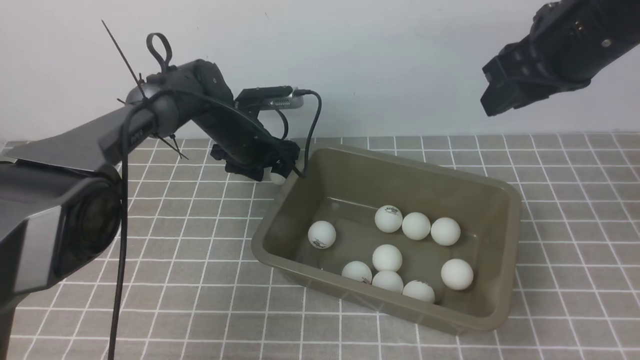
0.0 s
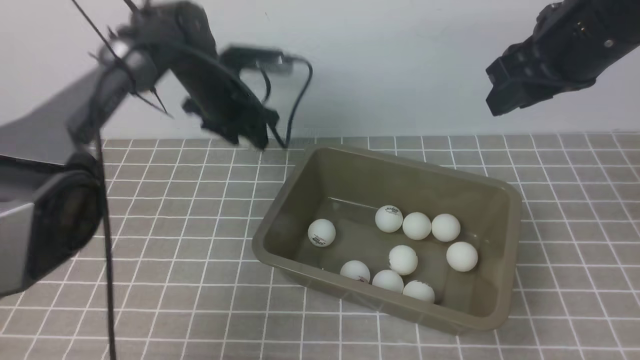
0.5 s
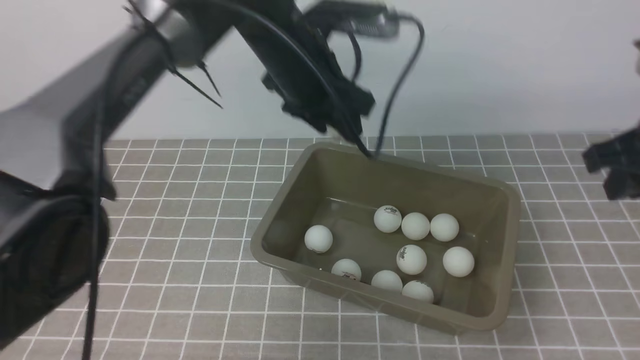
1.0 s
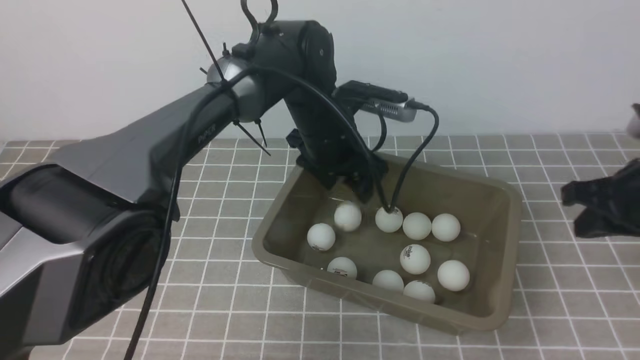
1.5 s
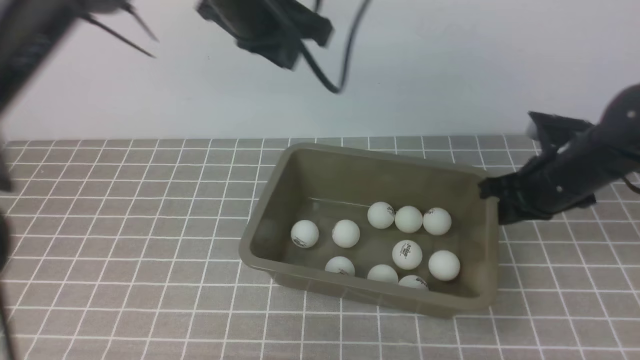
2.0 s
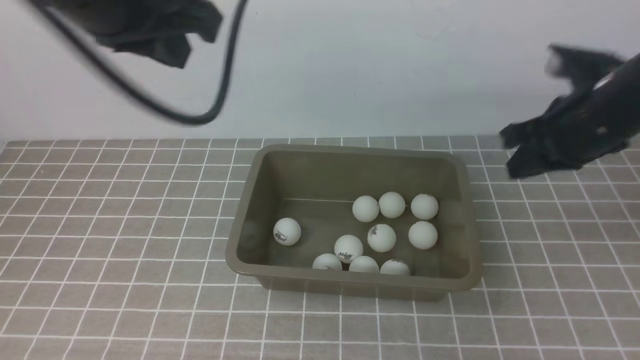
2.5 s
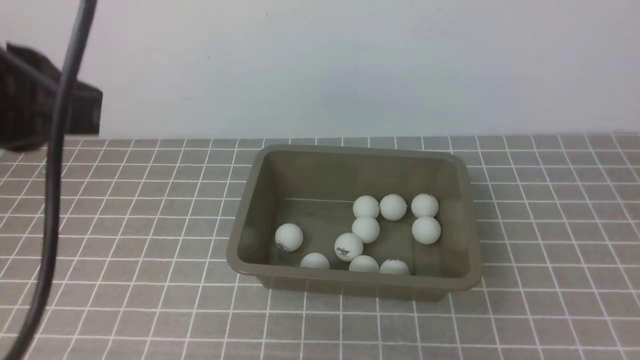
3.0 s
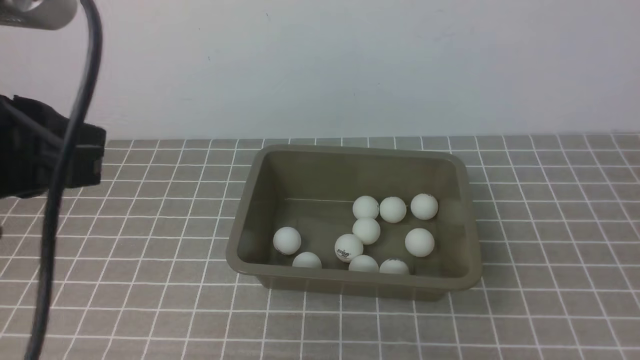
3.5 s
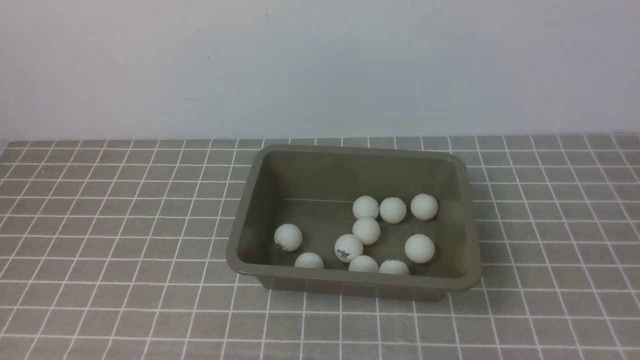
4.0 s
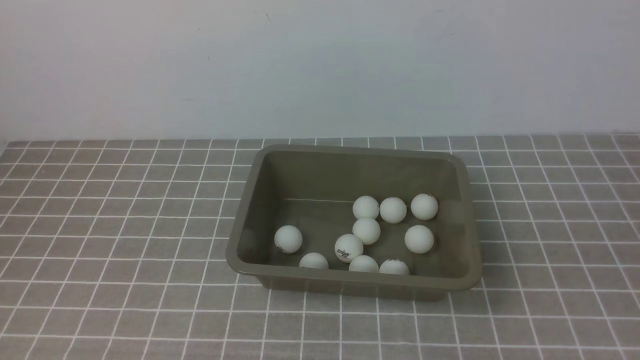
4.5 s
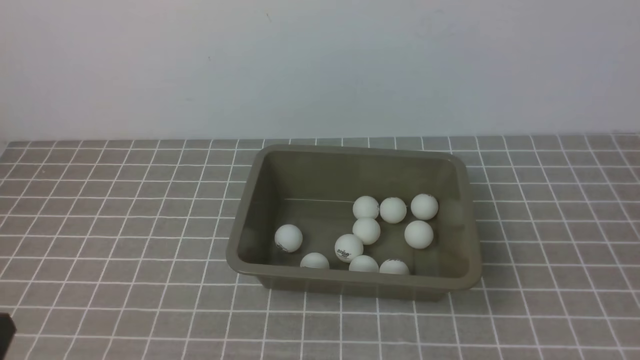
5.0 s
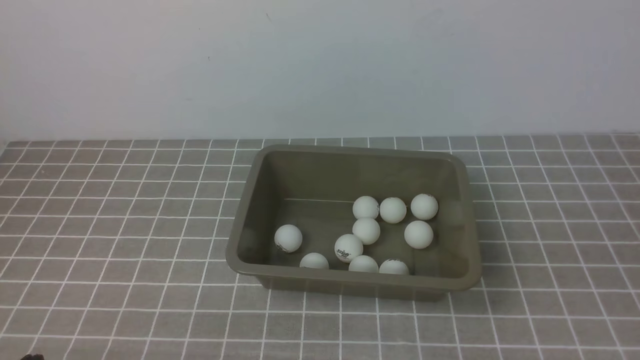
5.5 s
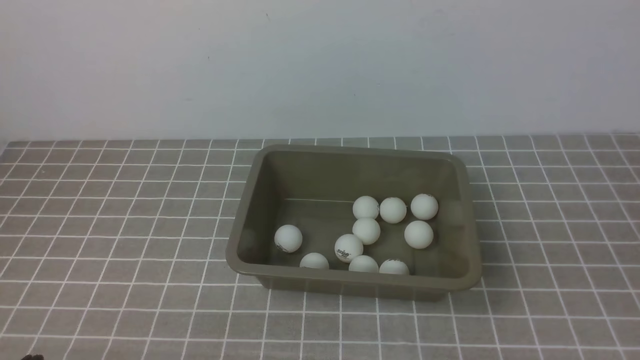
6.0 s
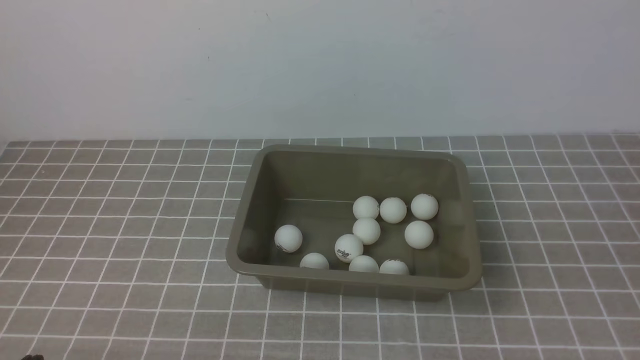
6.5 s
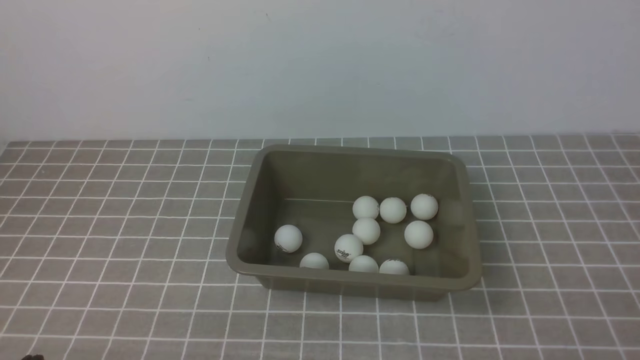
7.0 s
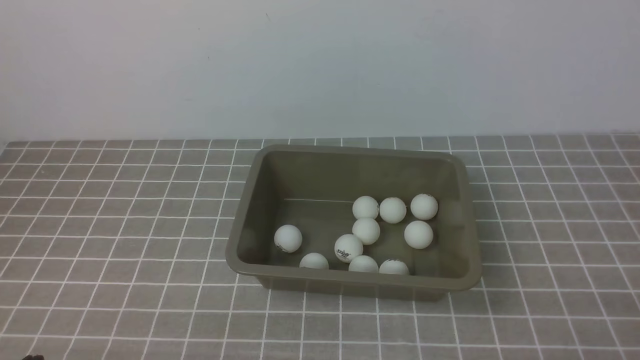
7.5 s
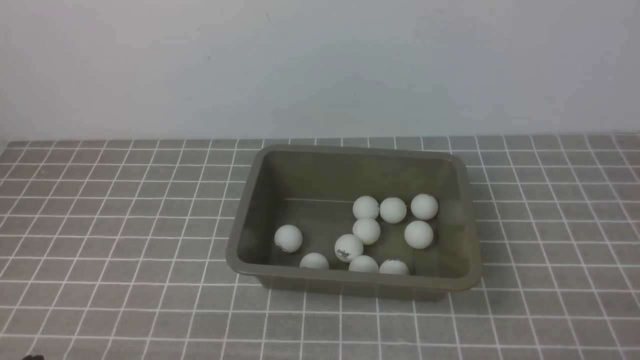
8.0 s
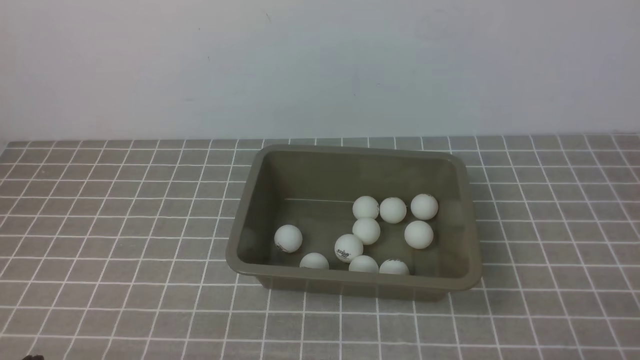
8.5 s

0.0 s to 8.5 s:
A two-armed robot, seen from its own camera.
Step, 1.0 to 1.5 s: use the left arm to put the table tennis ball into the box.
0.0 to 2.0 s: The right gripper heads downward, covering approximately 20 cm, and closes. Meanwhile the left gripper swings up and down, about 25 cm each way, with 2 reversals, and closes up.
2.0 to 4.0 s: The left gripper is displaced backward and to the left by approximately 40 cm; the right gripper shifts some 35 cm backward.

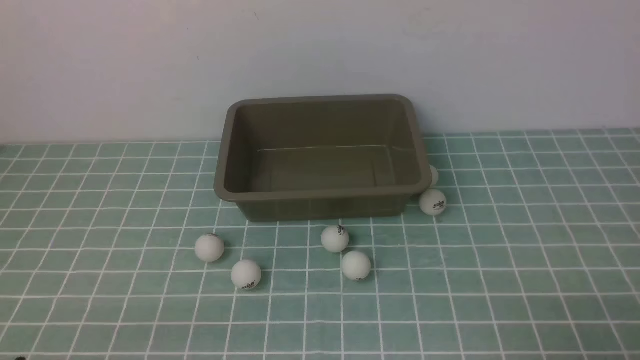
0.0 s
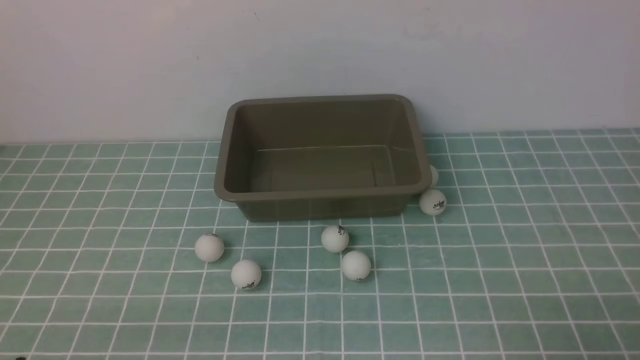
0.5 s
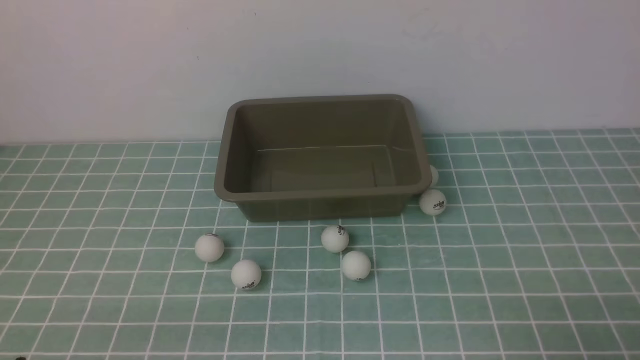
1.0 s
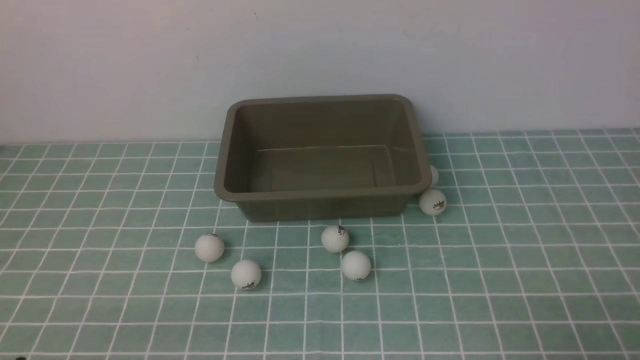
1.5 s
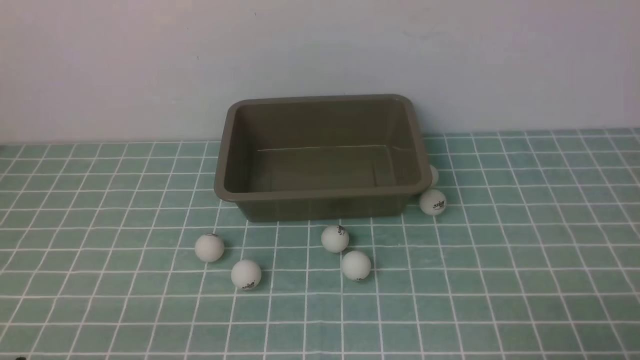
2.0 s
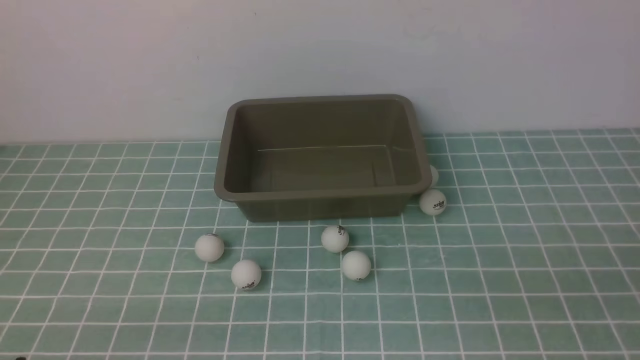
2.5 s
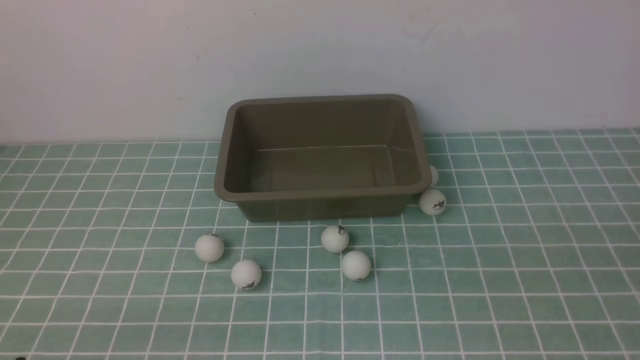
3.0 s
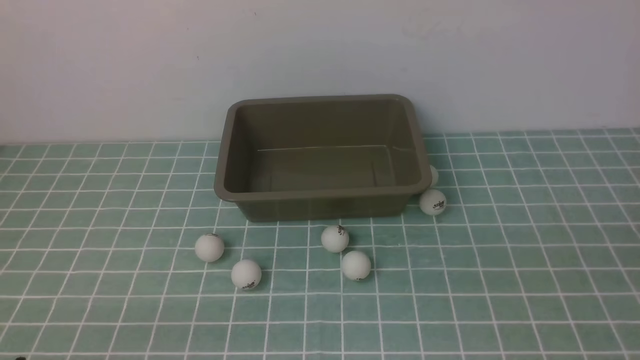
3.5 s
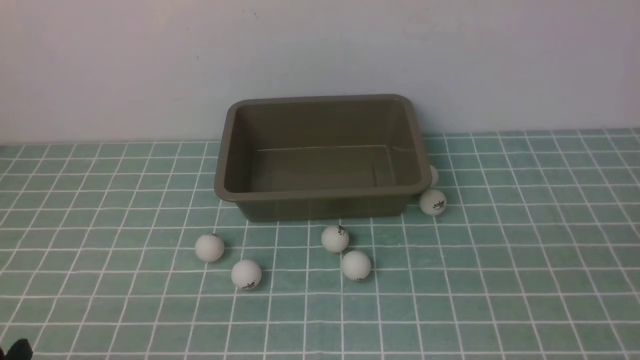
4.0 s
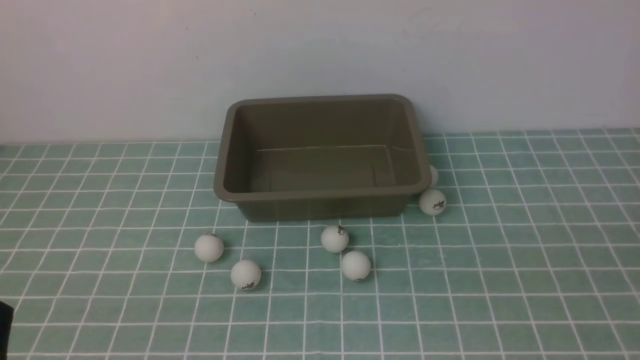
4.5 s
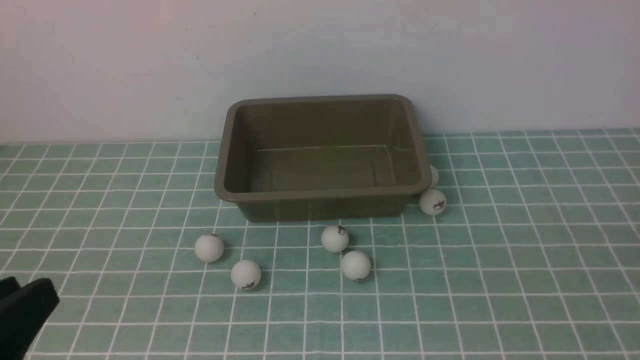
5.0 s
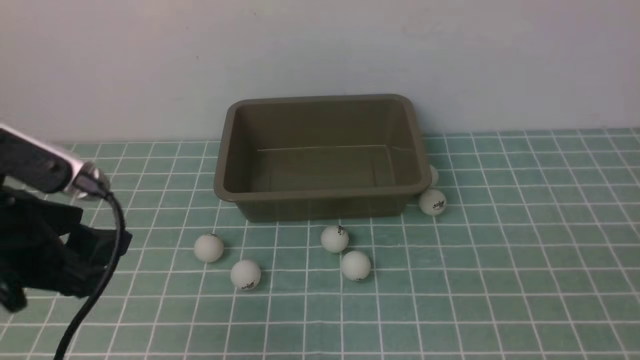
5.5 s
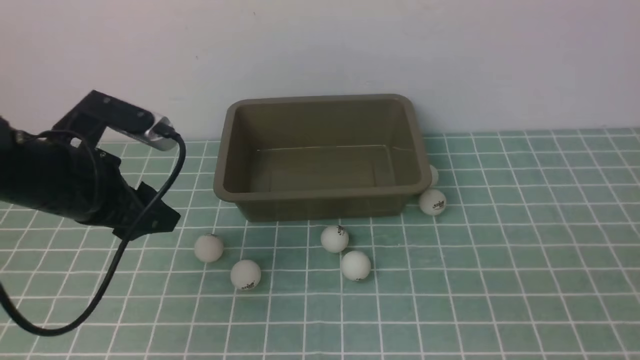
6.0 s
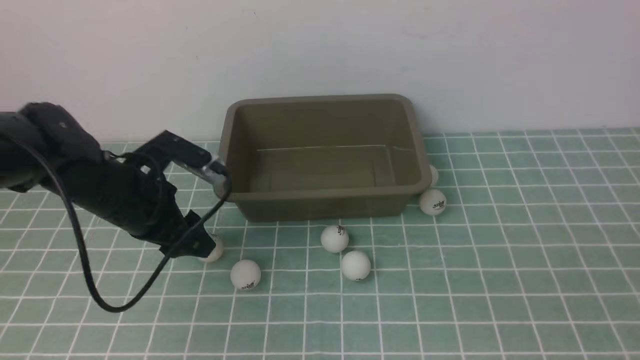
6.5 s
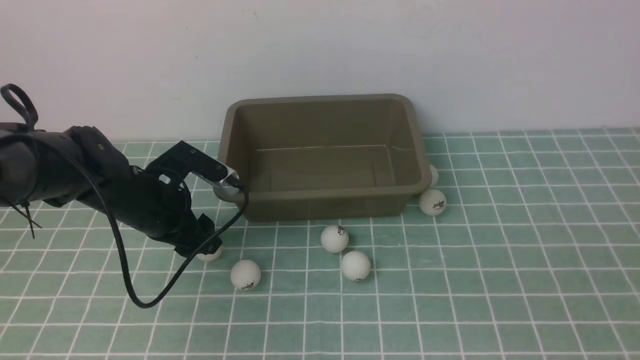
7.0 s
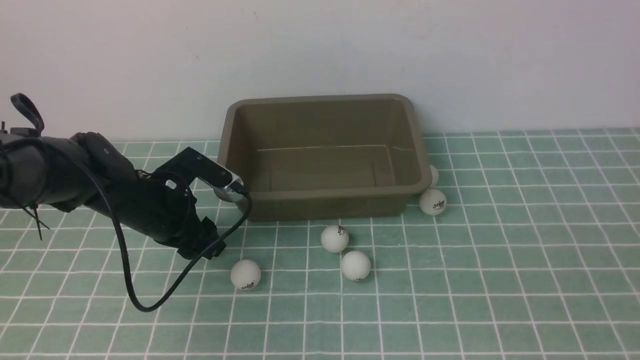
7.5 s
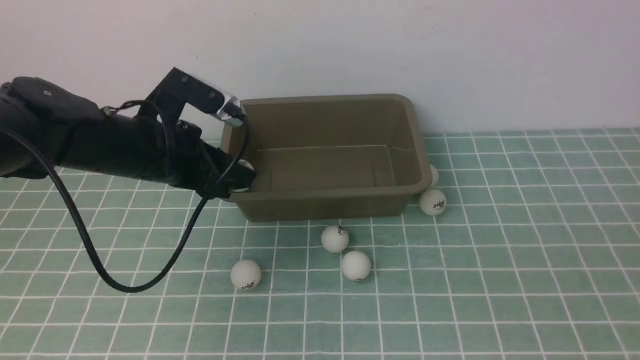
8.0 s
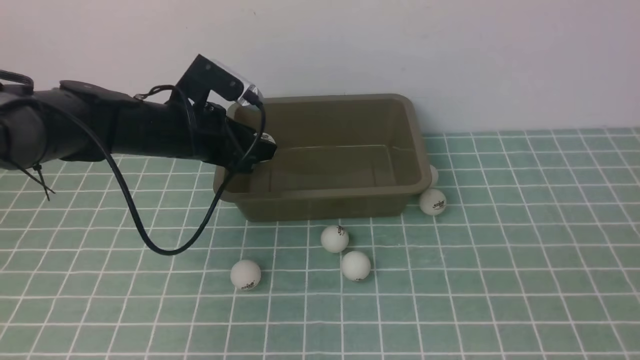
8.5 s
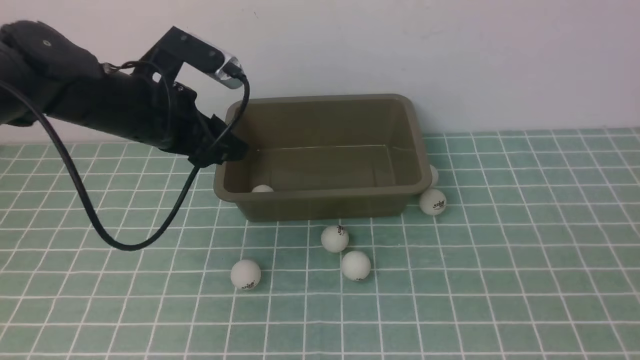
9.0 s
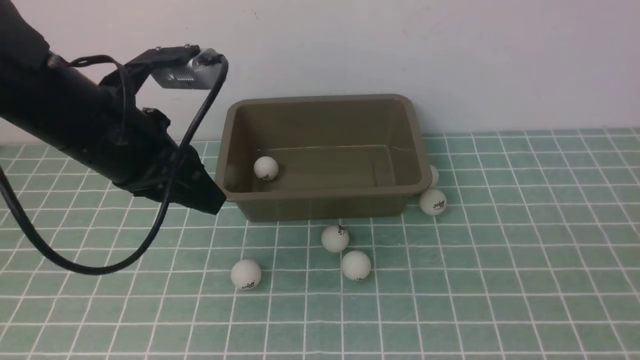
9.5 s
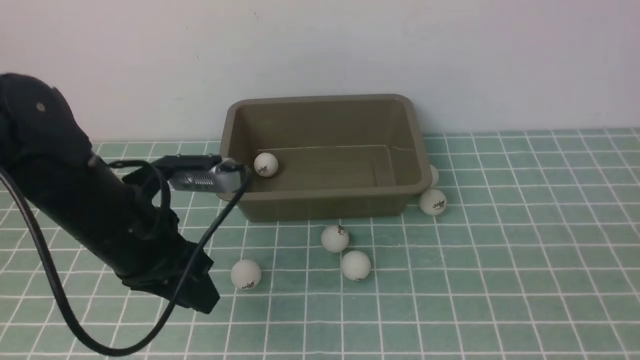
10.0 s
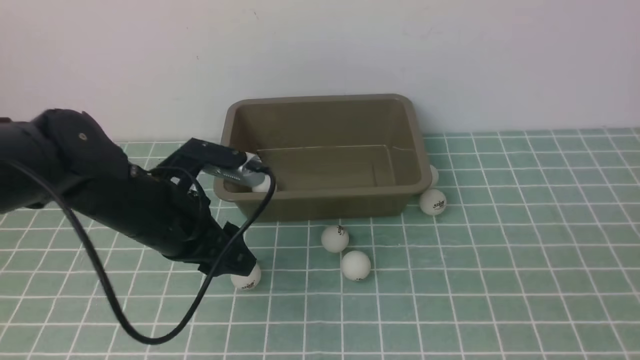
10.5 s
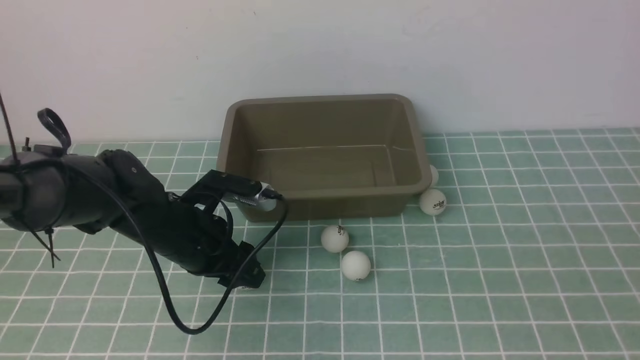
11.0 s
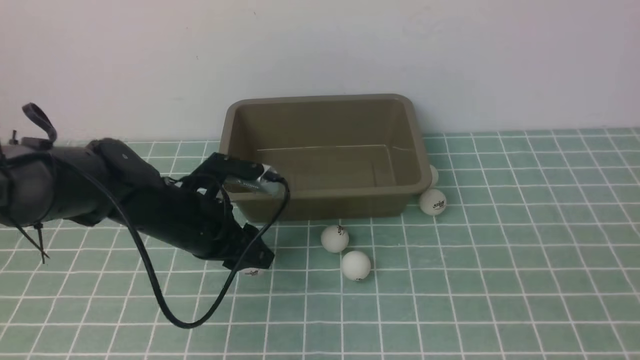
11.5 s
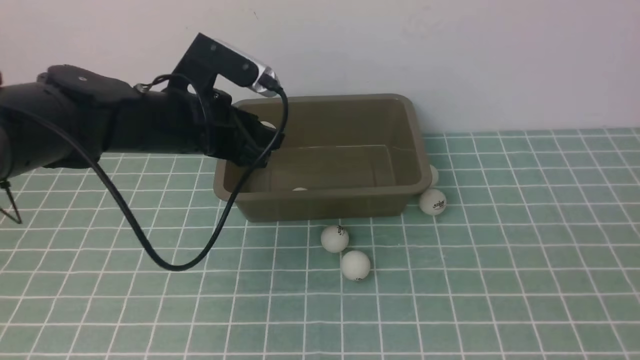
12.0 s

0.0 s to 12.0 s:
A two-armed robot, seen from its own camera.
Step, 0.0 to 7.5 s: use the left arm to clamp the table tennis ball closest to it.
Step, 8.0 to 8.5 s: use the left arm to put the table tennis ball into the box.
Step, 9.0 to 11.5 s: use the left arm to clamp the table tennis ball closest to it.
0.0 to 2.0 s: Both grippers stay about where they are.
4.0 to 6.0 s: The left gripper shifts approximately 25 cm forward, and opens up.
6.0 to 8.0 s: The left gripper heads forward and to the right, covering approximately 10 cm, and reaches approximately 10 cm downward, then returns.
8.0 to 10.0 s: The left gripper is displaced backward by some 10 cm, and closes, then opens again.
10.0 to 12.0 s: The left gripper is displaced forward by some 5 cm, and moves about 10 cm downward and comes back.
